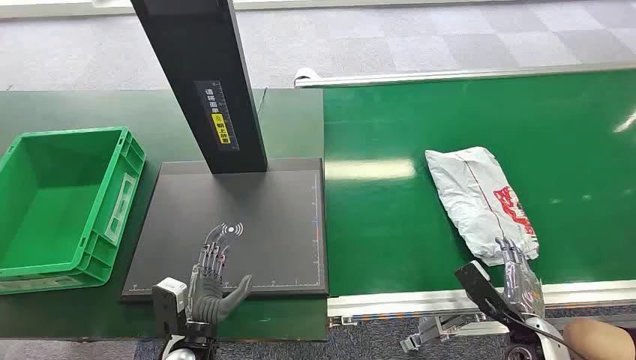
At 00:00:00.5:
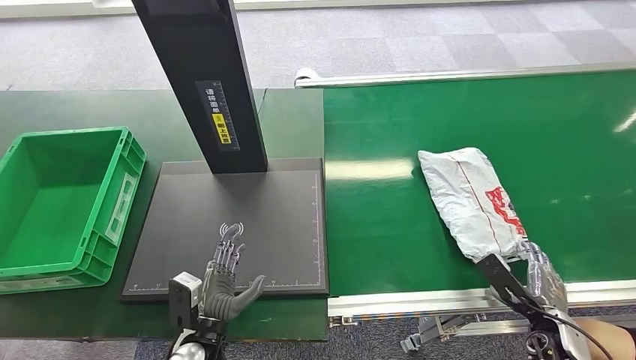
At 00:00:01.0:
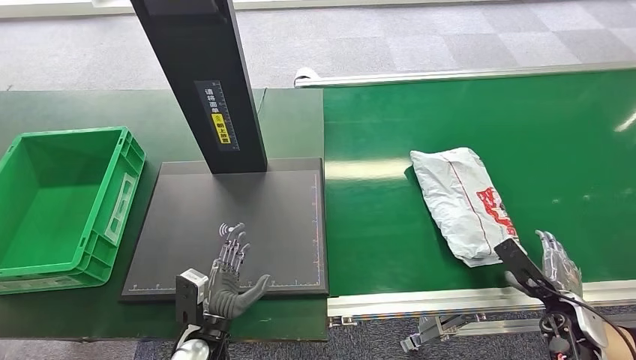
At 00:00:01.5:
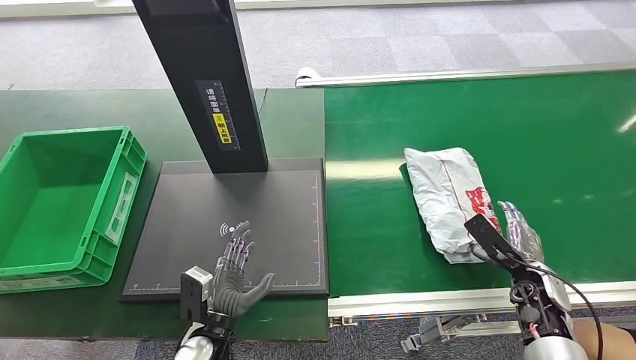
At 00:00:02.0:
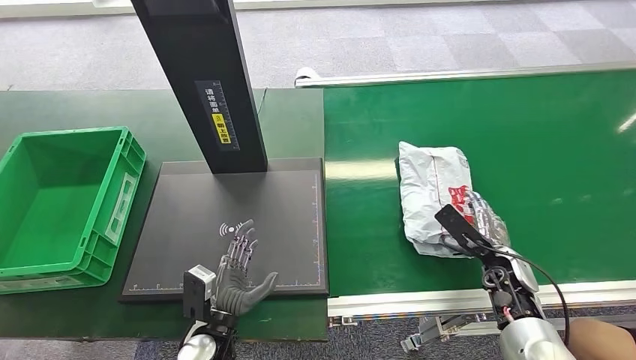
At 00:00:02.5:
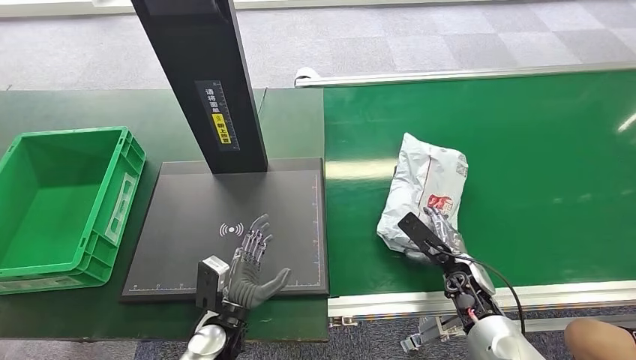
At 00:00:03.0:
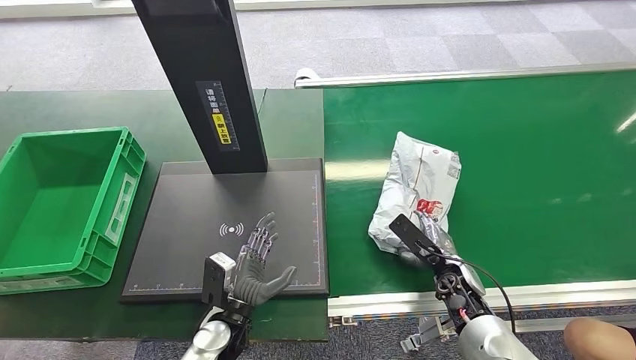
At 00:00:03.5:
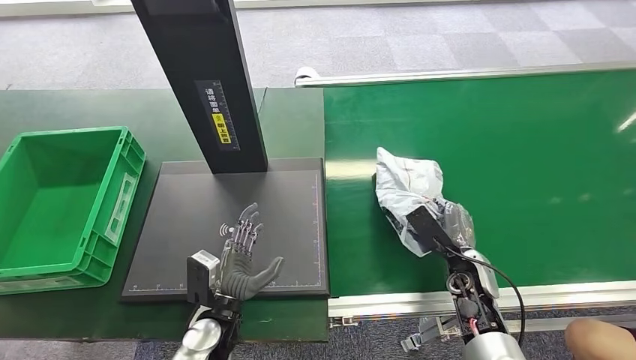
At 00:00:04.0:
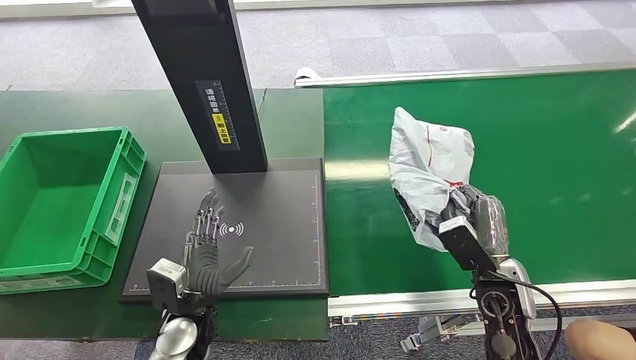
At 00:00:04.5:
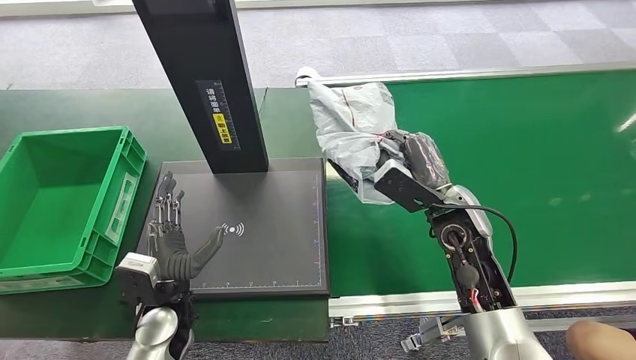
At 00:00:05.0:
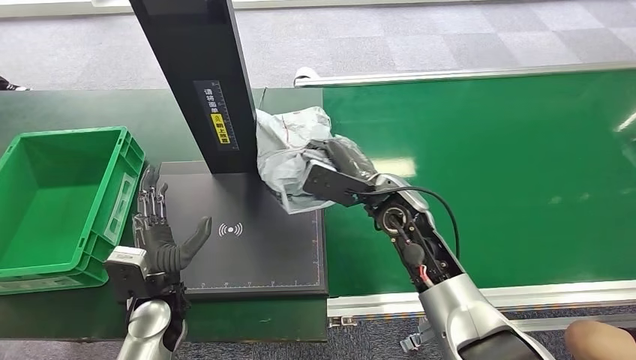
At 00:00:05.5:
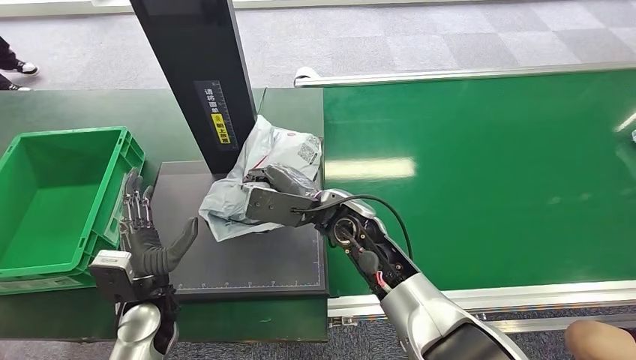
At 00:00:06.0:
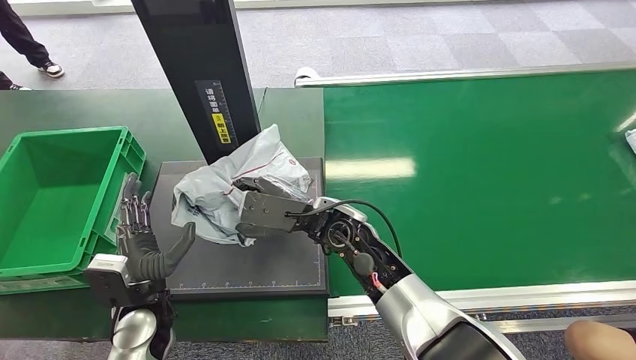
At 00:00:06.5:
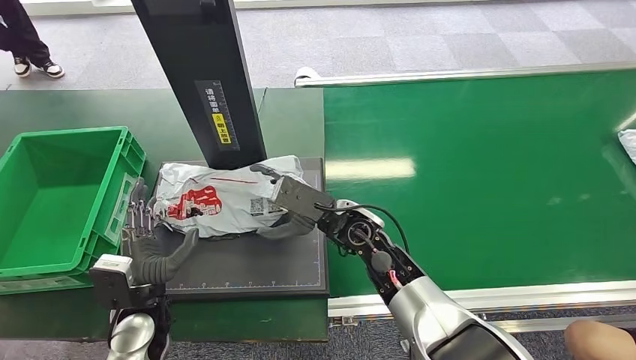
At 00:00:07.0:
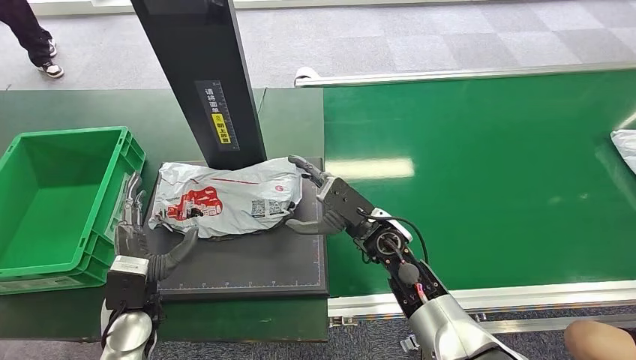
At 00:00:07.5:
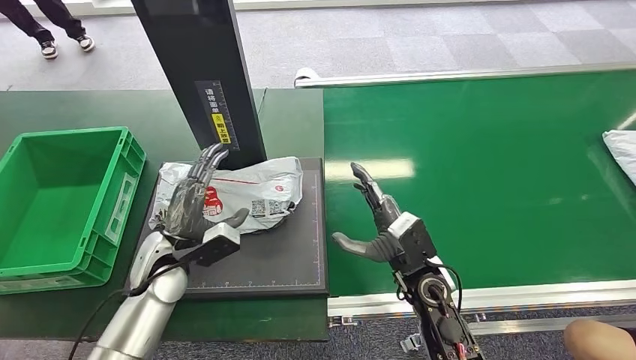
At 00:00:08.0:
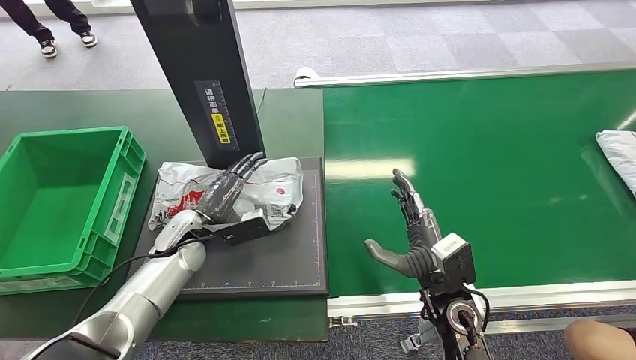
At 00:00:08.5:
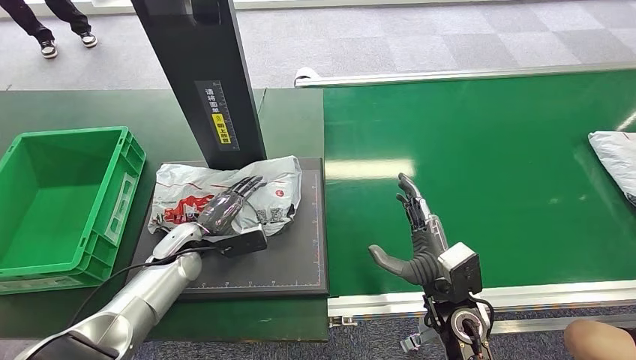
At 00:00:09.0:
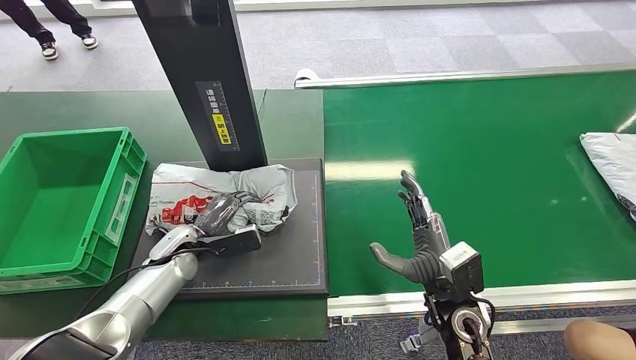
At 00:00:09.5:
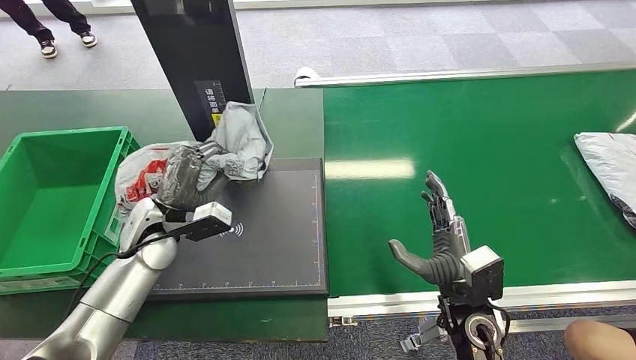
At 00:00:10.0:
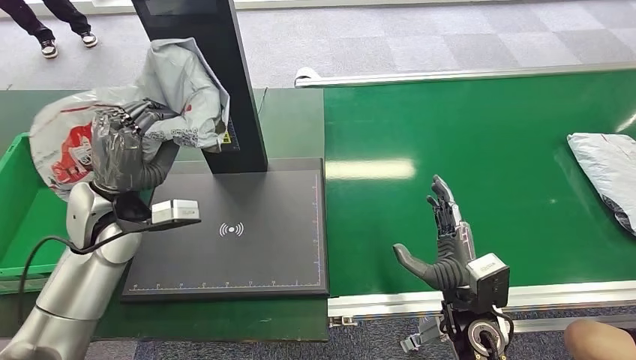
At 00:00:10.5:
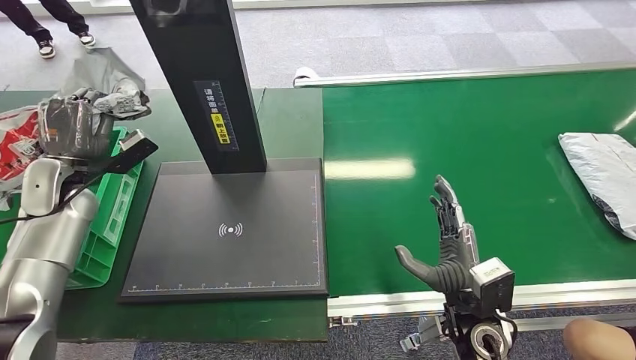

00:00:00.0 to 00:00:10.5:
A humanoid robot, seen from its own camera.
Step, 00:00:00.0 to 00:00:04.5: Pick up the package from the conveyor belt.
Step, 00:00:05.0 to 00:00:07.0: Place the package onto the inbound machine.
Step, 00:00:07.5 to 00:00:10.0: Pick up the package from the inbound machine.
00:00:02.0 to 00:00:04.0: The right hand heads to the left, upward and backward, covering about 10 cm, while the left hand ends up about 5 cm from where it was.
00:00:06.5 to 00:00:08.5: The right hand shifts roughly 20 cm to the right and backward; the left hand heads forward, covering roughly 15 cm.

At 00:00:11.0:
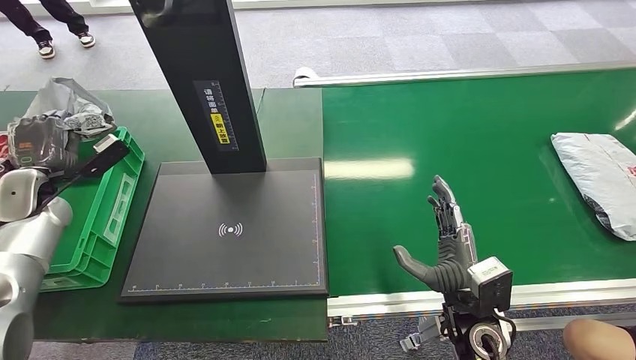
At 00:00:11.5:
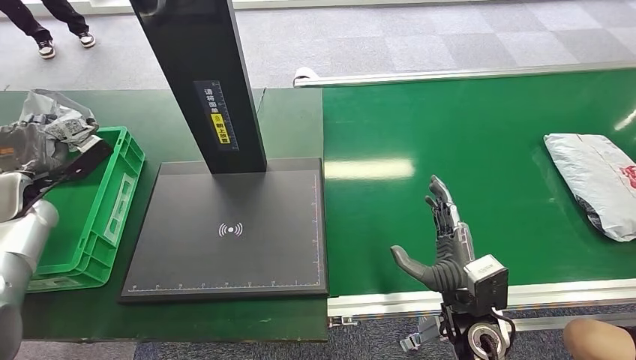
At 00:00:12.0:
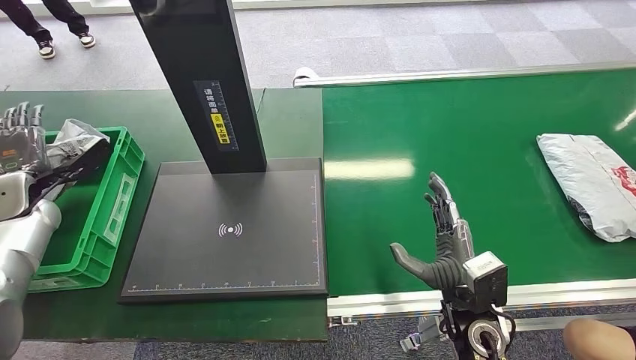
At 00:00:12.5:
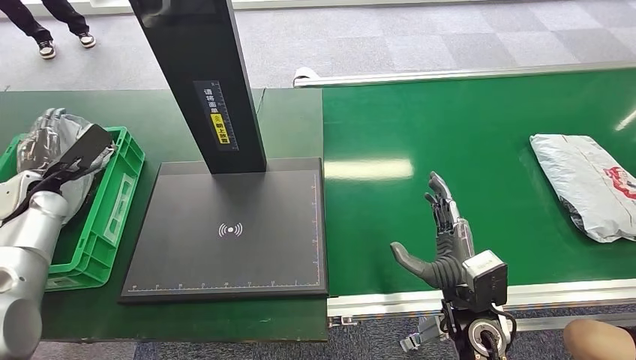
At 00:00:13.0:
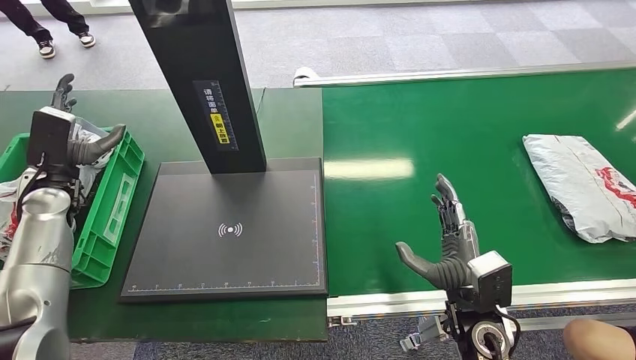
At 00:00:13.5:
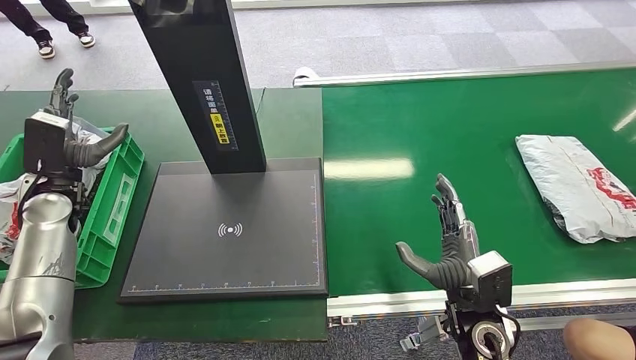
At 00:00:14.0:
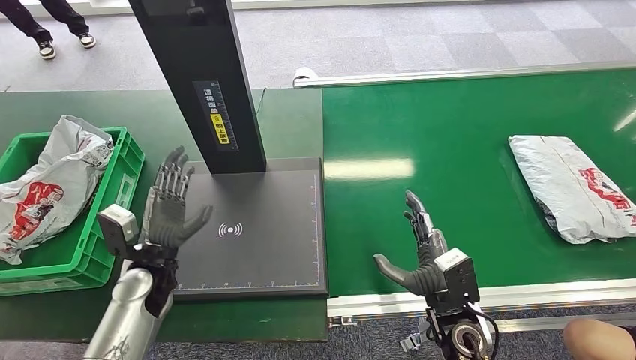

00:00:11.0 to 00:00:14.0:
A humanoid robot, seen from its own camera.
Step, 00:00:11.0 to 00:00:14.0: Place the package into the parcel locker.
00:00:12.5 to 00:00:14.0: The left hand moves to the right and backward, some 25 cm.
